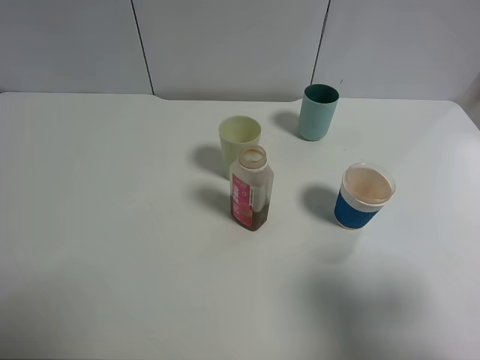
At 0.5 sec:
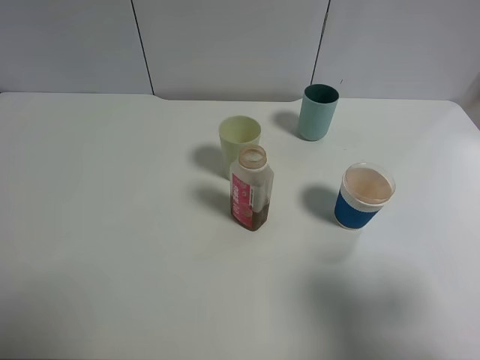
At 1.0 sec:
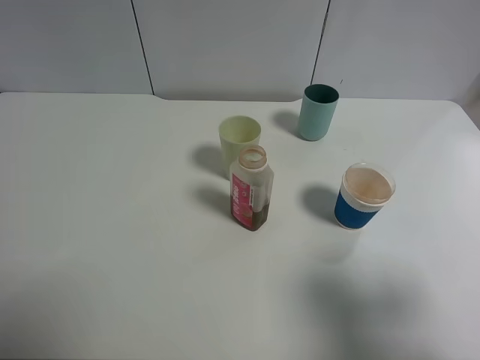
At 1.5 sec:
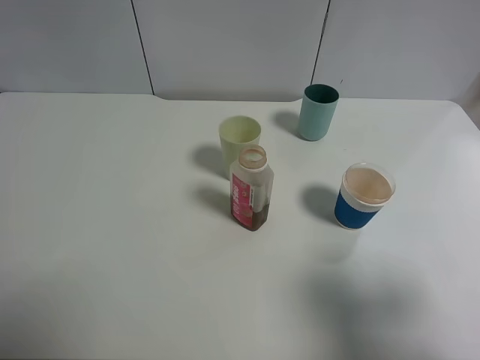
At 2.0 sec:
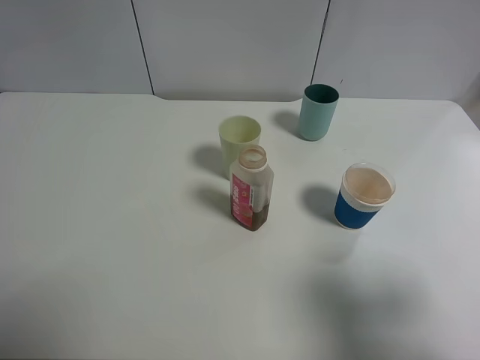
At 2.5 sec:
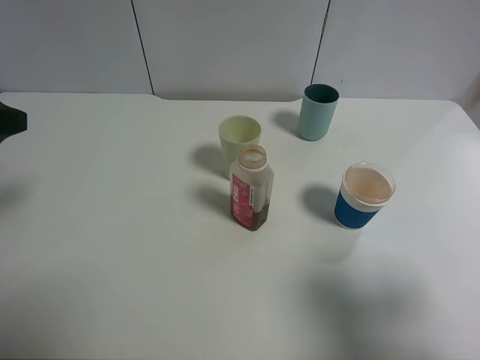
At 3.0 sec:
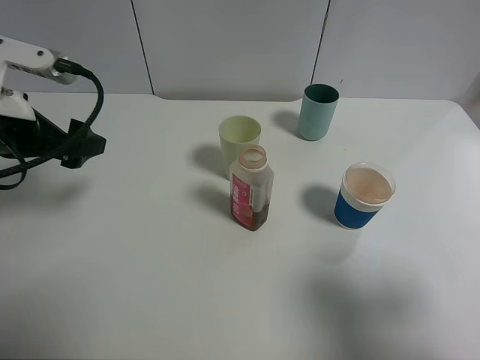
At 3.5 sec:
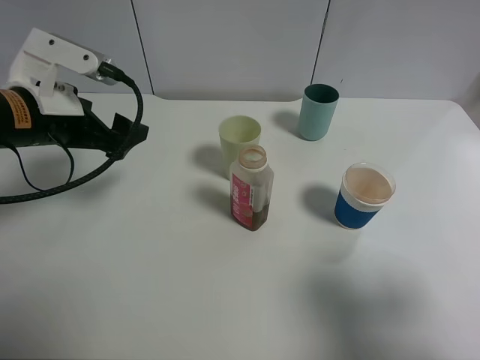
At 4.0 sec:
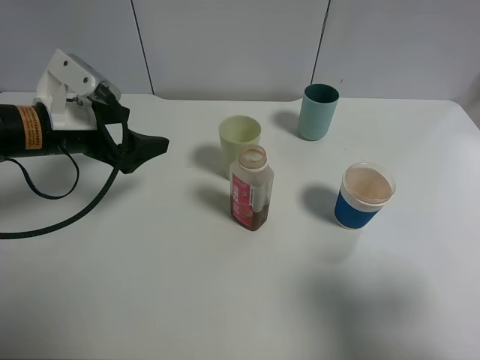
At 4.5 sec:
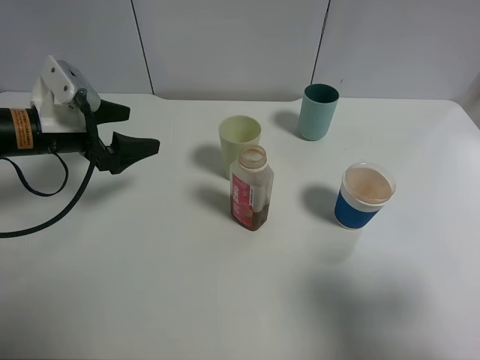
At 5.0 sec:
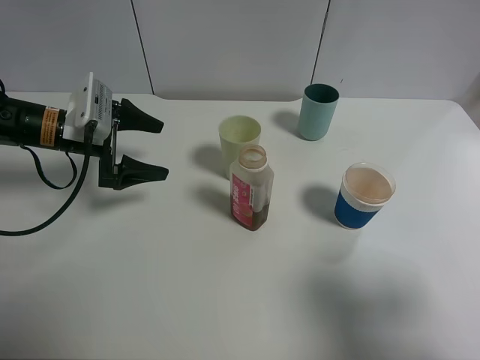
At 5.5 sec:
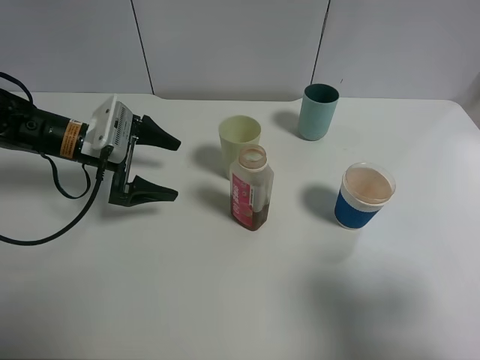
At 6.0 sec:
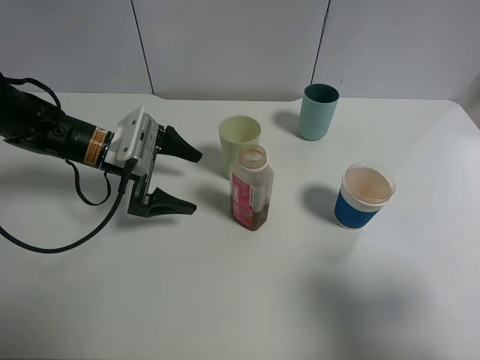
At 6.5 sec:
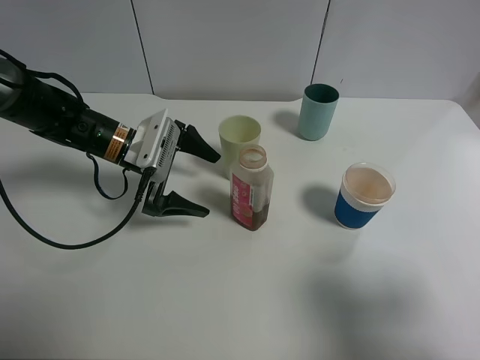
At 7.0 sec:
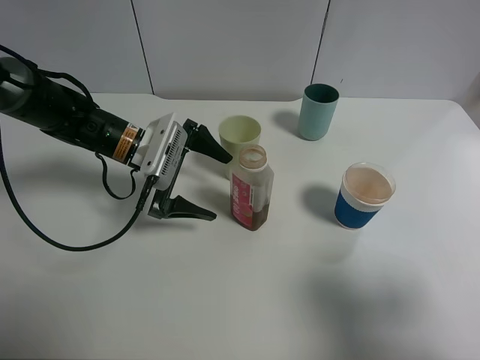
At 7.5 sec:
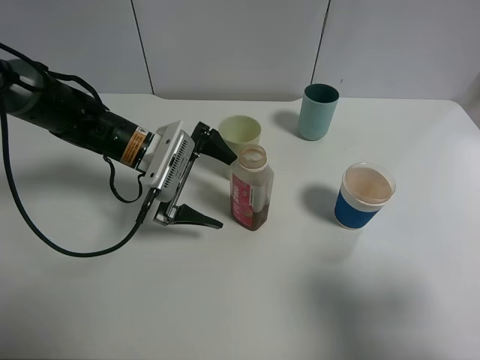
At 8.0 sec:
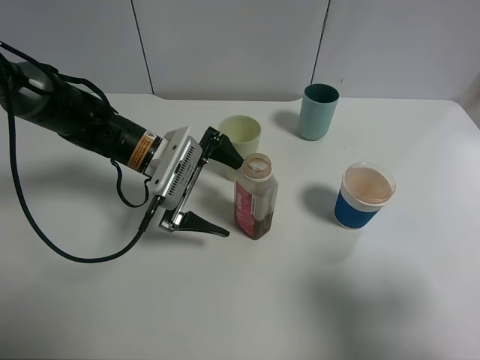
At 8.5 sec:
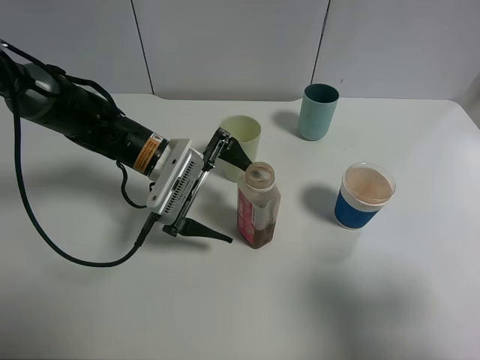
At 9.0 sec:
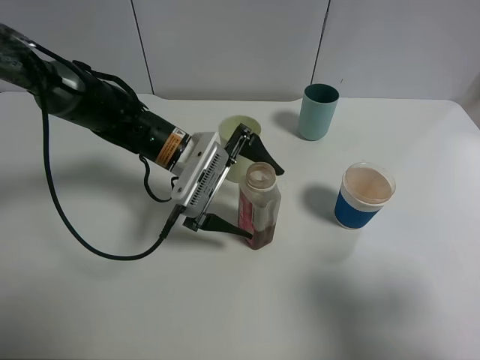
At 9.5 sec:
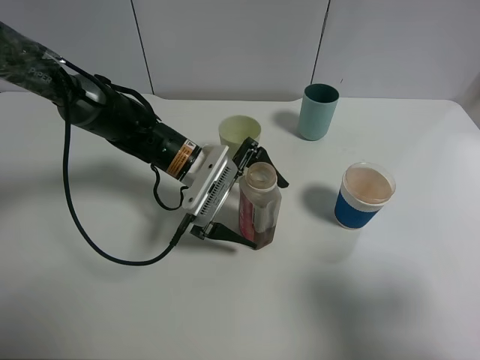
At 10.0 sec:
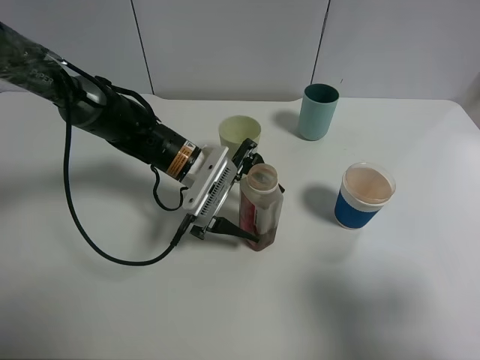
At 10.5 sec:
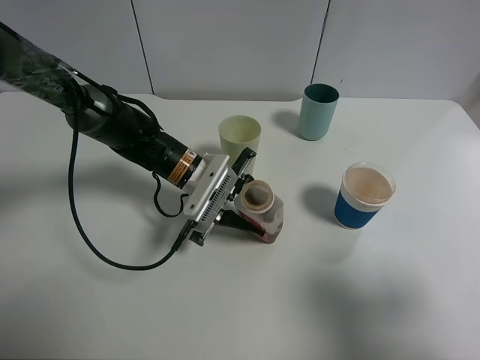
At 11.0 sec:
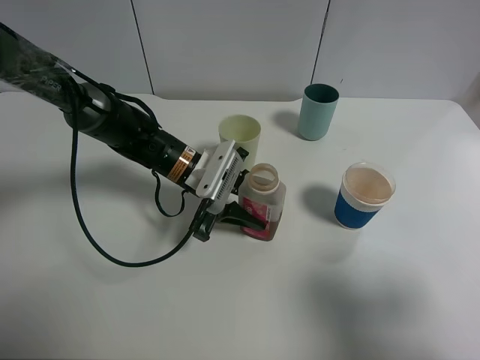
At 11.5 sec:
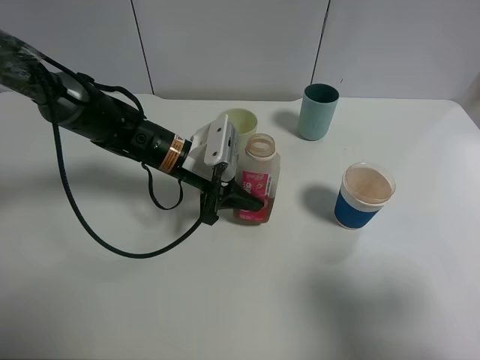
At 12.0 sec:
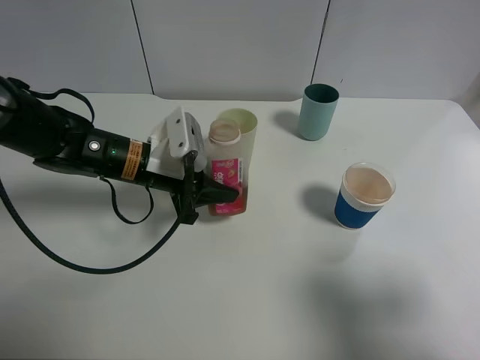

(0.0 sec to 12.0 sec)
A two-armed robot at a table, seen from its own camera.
Task of the whole recording: use a clamp to hold the bottle of the drink, pour the beverage into a random cup, then clamp the cup containing the drink and pour the drink into another random cup.
Step, 0.0 sec - 11.5 sec: Pick up the drink bottle with left gripper.
2.0 sec - 4.0 sec: The left gripper is displaced forward, downward and to the right by about 25 cm.
4.0 sec - 6.0 sec: The left gripper moves downward, roughly 5 cm.
6.0 sec - 8.0 sec: The left gripper moves to the right, roughly 5 cm.
8.0 sec - 10.0 sec: The left gripper moves about 5 cm, and closes its fingers.
10.0 sec - 12.0 sec: The left gripper travels to the left by approximately 5 cm, and closes.

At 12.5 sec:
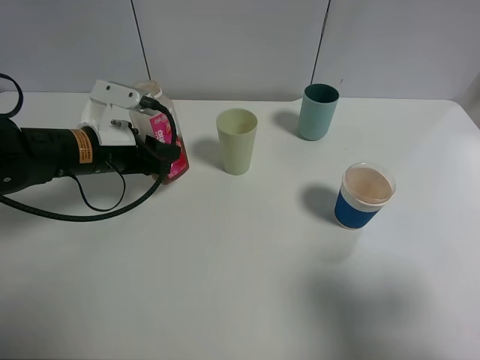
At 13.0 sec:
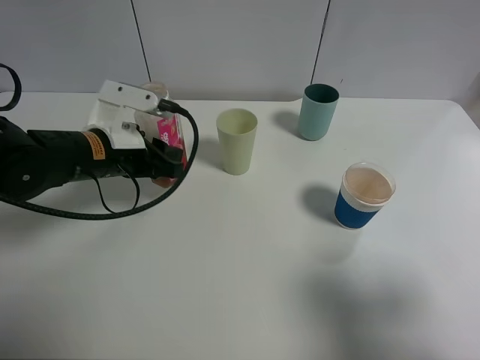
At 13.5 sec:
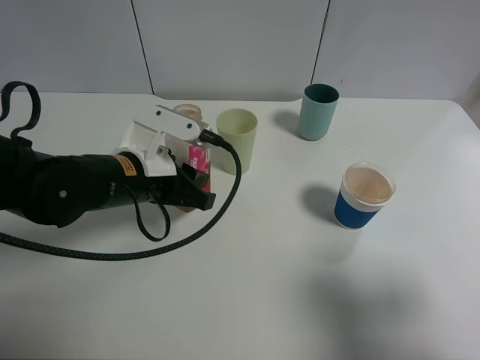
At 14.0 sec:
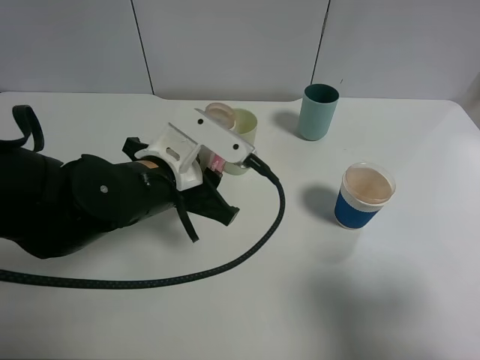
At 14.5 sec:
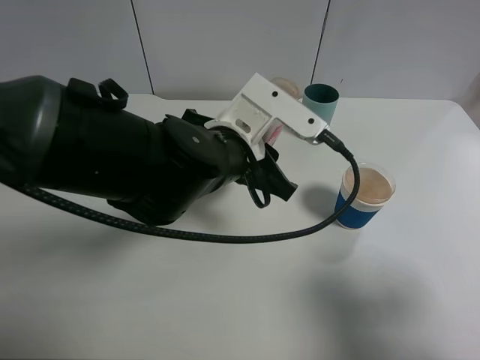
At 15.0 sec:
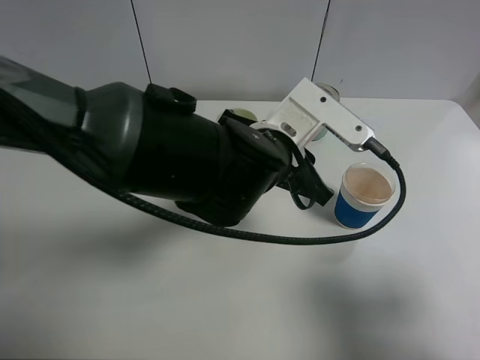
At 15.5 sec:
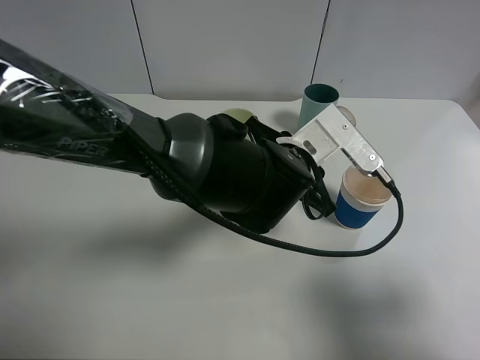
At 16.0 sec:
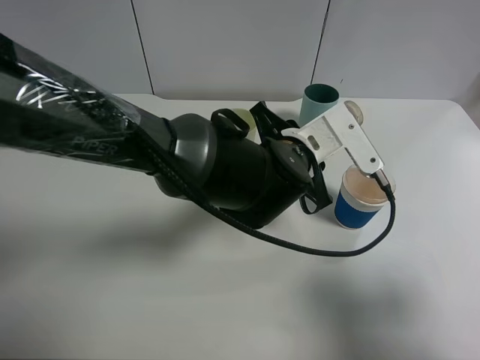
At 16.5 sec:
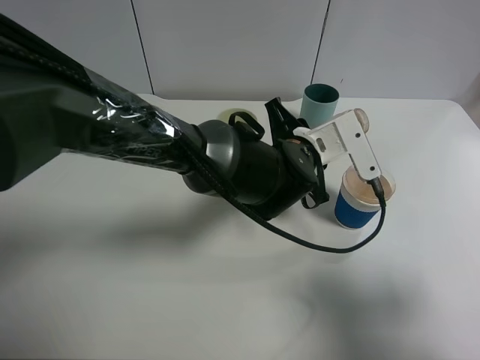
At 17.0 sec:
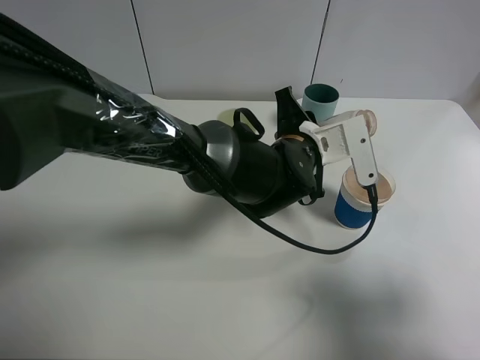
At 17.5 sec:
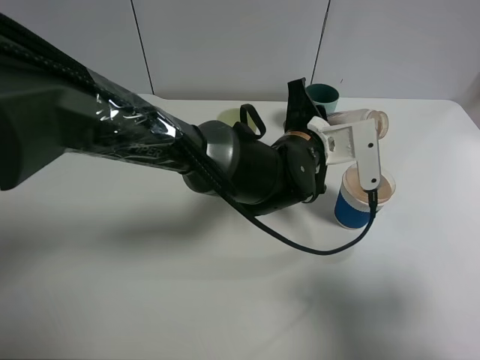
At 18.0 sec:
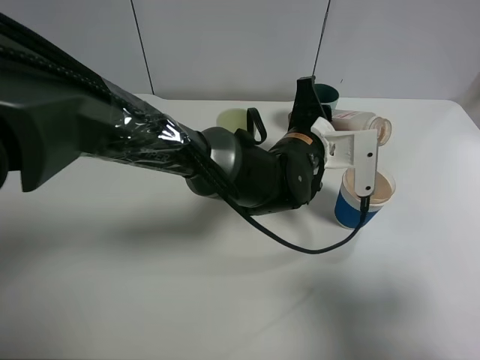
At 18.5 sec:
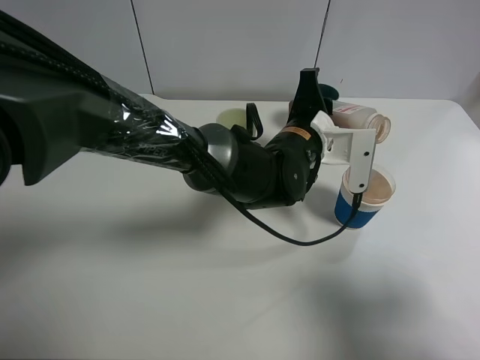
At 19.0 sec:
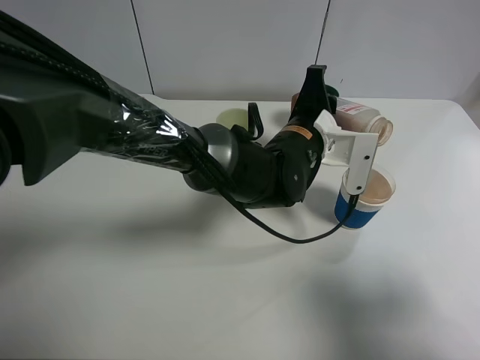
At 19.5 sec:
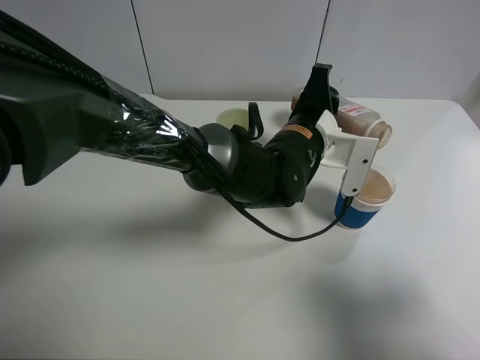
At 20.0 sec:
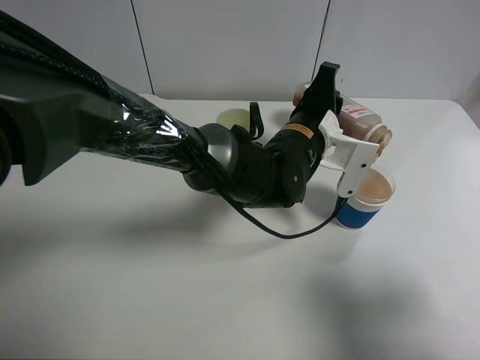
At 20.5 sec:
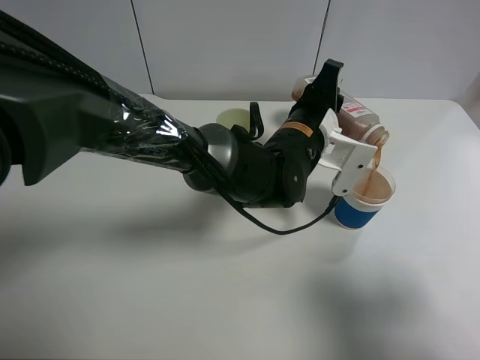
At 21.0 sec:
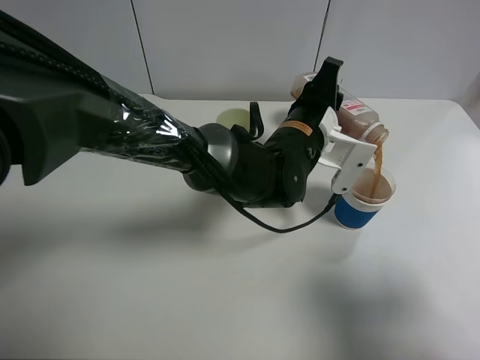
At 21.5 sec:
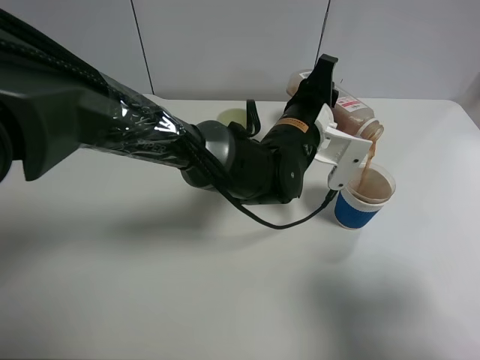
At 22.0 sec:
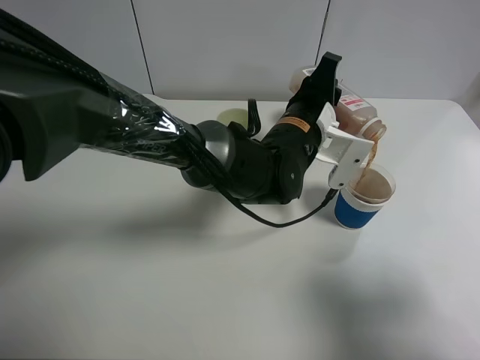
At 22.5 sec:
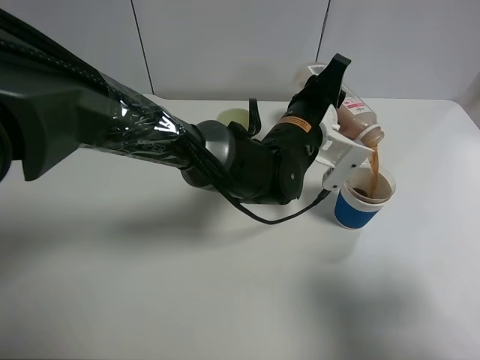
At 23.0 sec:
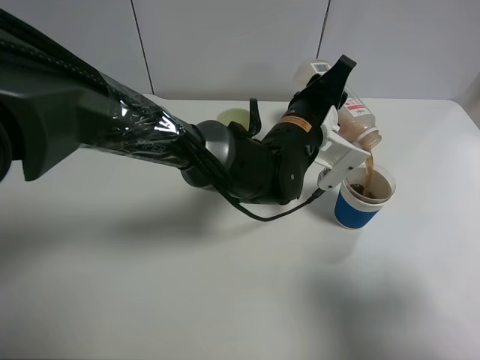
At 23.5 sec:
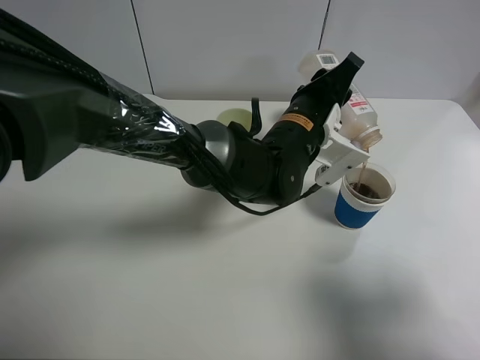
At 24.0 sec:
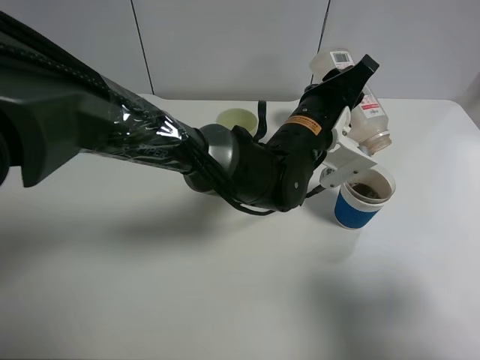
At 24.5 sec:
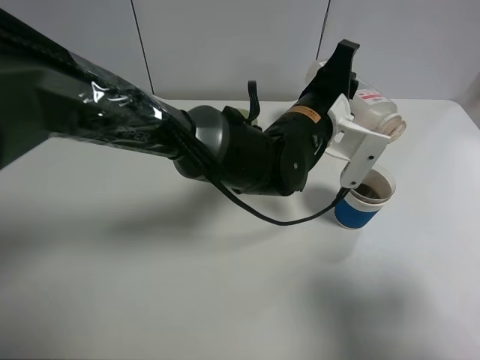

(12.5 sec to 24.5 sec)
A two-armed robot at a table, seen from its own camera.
Task of the whole recording: use a clamp to hold the bottle of the drink, pour the beverage into a random cup, then clamp the cup containing the drink and pour the drink into another random cup.
Step, 12.5 sec - 24.5 sec: Pour the drink into the paper cup with left gripper.
12.5 sec - 14.5 sec: The left gripper goes about 15 cm to the right.
14.5 sec - 16.5 sec: The left gripper is displaced to the right and downward by roughly 10 cm.
20.5 sec - 22.5 sec: The grippers move only a little.
22.5 sec - 24.5 sec: The grippers move only a little.

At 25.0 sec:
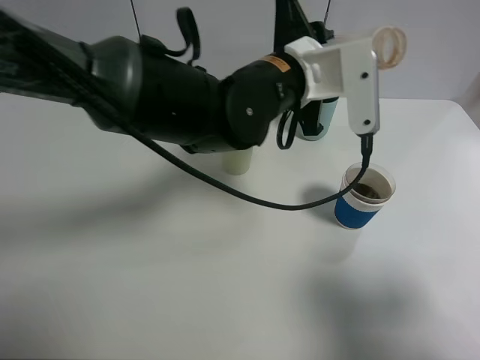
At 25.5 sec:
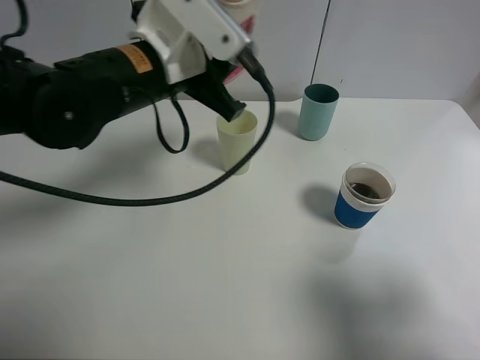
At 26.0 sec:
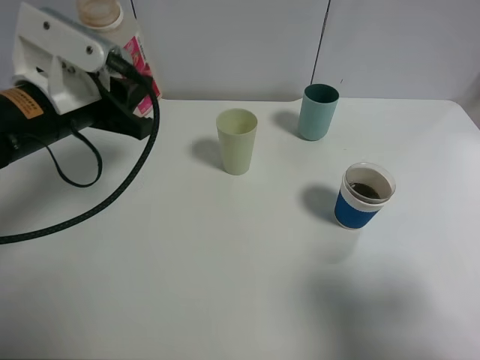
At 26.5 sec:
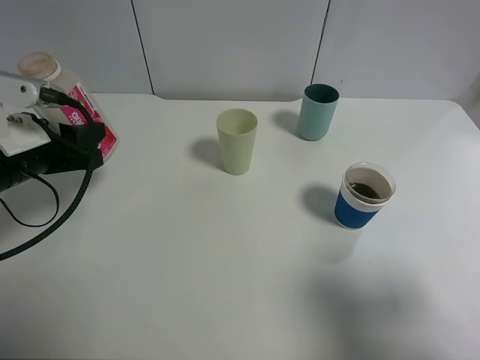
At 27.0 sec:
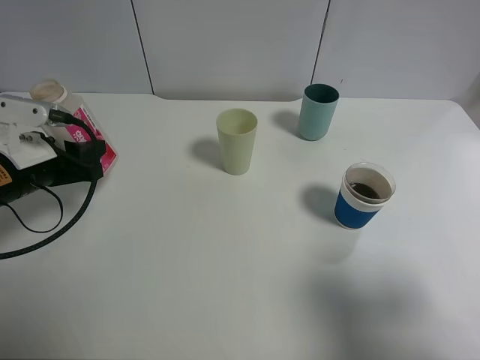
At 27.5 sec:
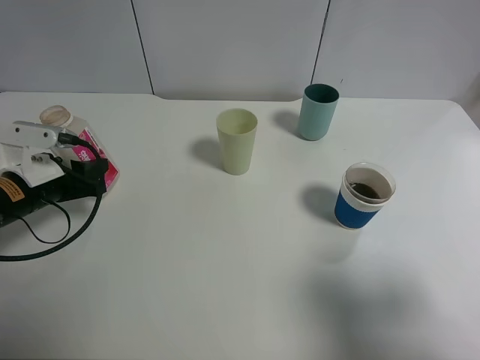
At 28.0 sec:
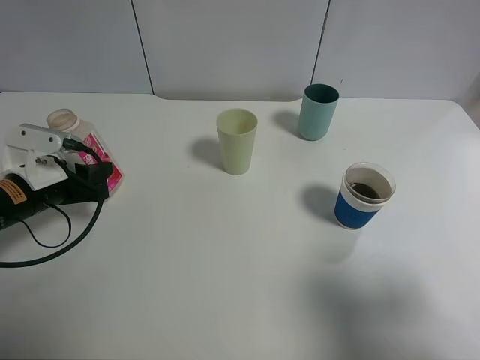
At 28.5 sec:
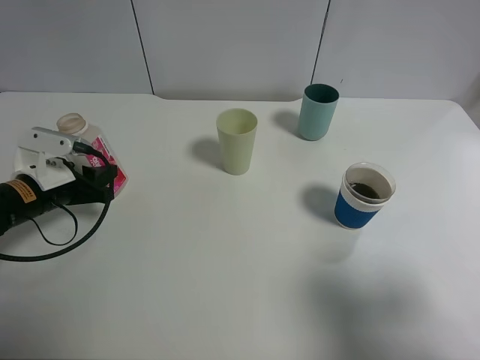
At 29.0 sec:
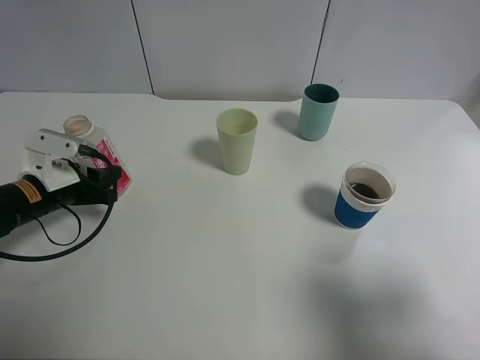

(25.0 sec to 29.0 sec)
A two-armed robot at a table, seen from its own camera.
Task of the whole recording: use a clamp to hold the bottle of the drink, pour the beverage into a random cup, then clamp the cup containing the drink and pour the drink into another random cup.
25.0 sec - 27.0 sec: The left gripper heads to the left, covering approximately 30 cm.
27.0 sec - 29.0 sec: The left gripper moves downward, about 5 cm.
